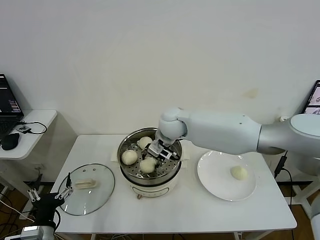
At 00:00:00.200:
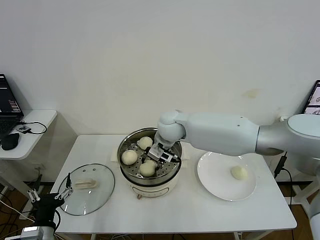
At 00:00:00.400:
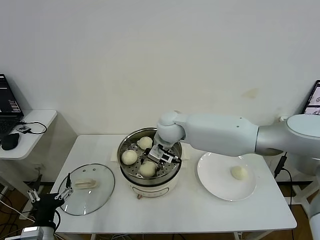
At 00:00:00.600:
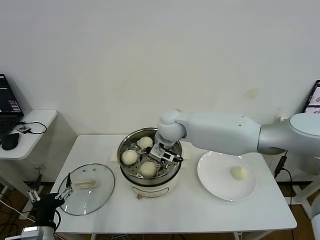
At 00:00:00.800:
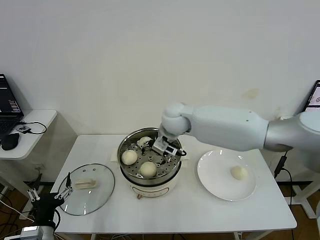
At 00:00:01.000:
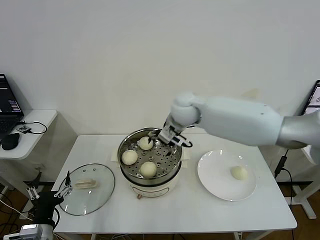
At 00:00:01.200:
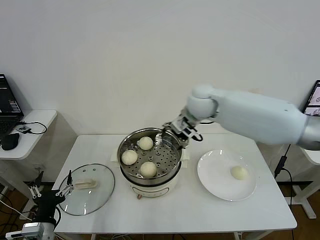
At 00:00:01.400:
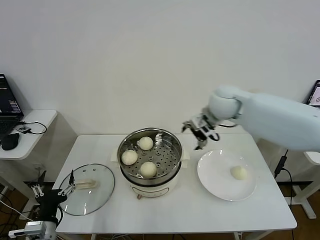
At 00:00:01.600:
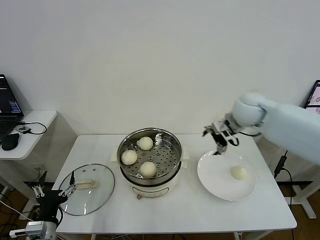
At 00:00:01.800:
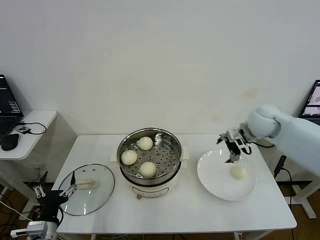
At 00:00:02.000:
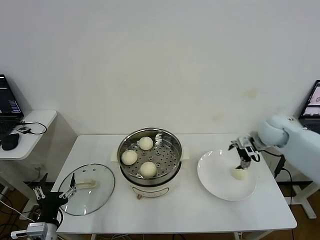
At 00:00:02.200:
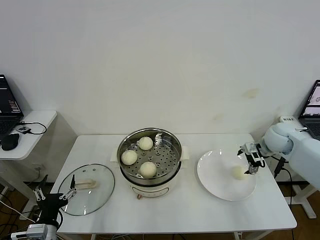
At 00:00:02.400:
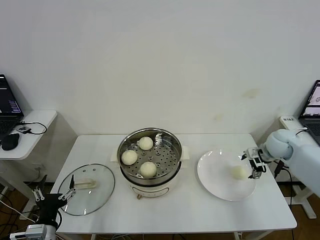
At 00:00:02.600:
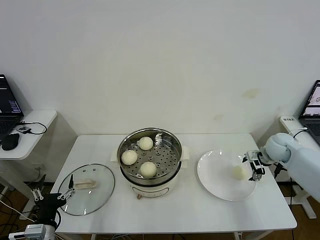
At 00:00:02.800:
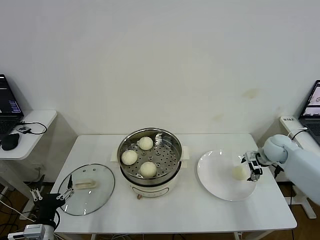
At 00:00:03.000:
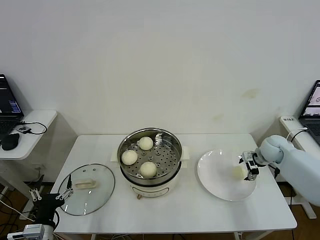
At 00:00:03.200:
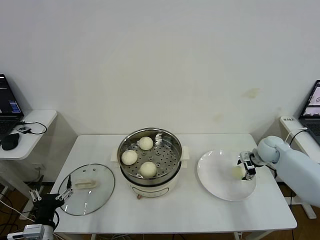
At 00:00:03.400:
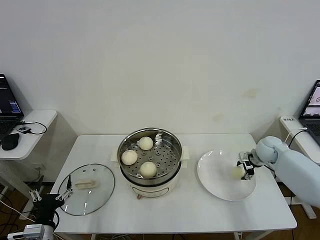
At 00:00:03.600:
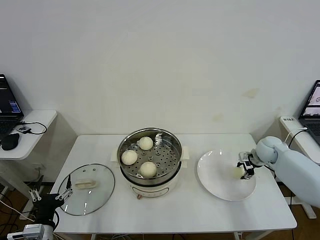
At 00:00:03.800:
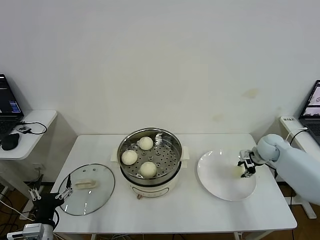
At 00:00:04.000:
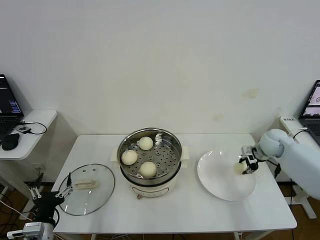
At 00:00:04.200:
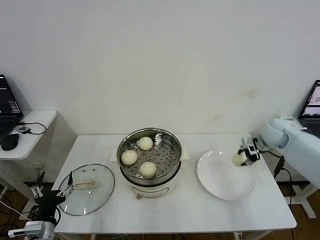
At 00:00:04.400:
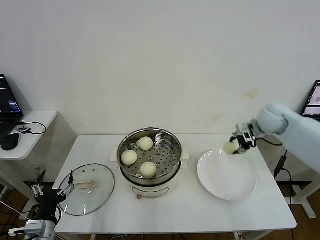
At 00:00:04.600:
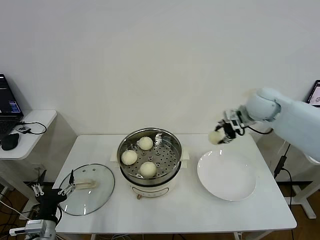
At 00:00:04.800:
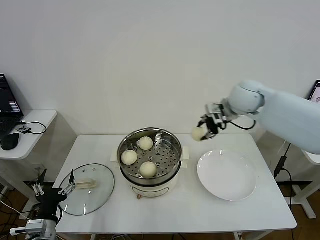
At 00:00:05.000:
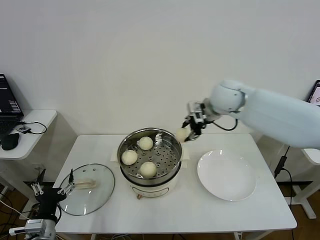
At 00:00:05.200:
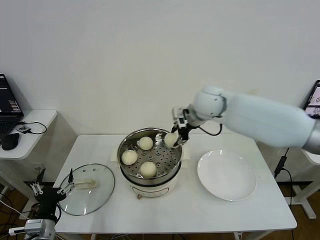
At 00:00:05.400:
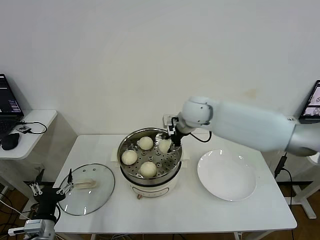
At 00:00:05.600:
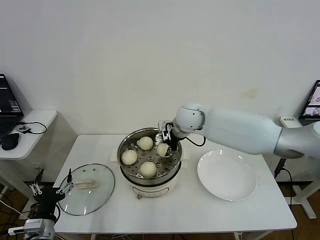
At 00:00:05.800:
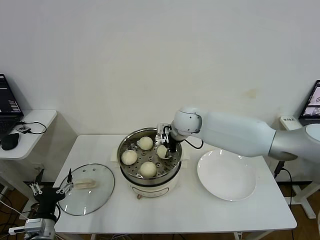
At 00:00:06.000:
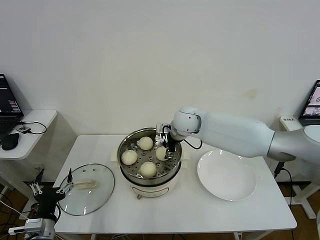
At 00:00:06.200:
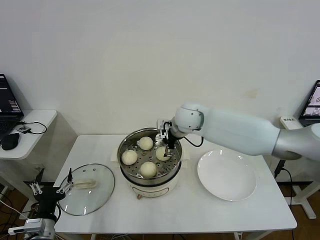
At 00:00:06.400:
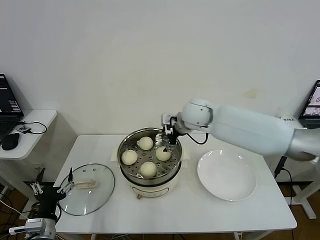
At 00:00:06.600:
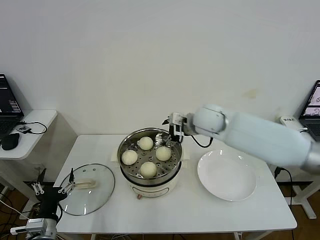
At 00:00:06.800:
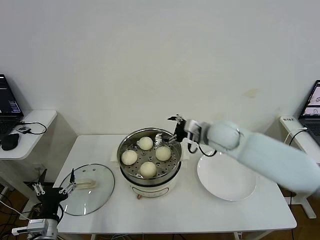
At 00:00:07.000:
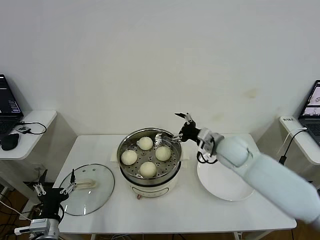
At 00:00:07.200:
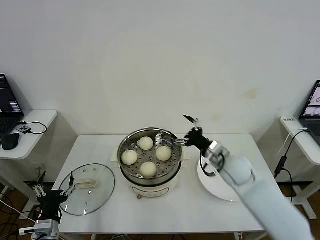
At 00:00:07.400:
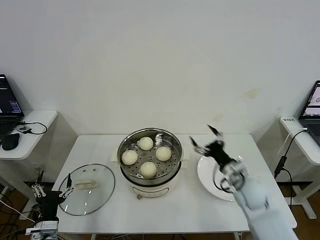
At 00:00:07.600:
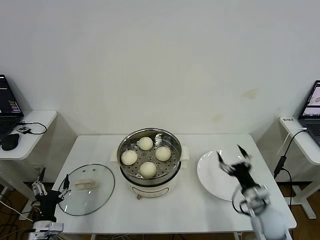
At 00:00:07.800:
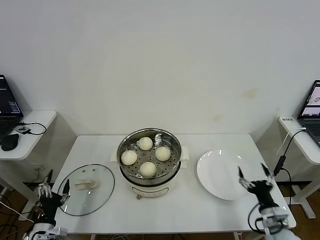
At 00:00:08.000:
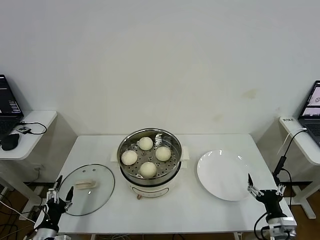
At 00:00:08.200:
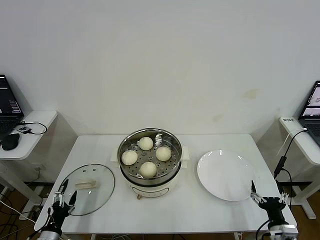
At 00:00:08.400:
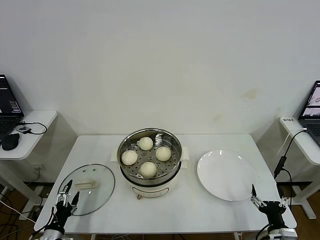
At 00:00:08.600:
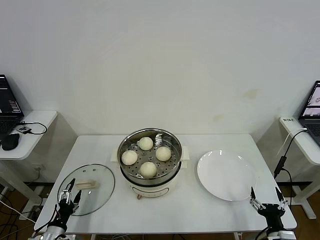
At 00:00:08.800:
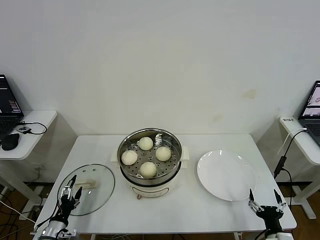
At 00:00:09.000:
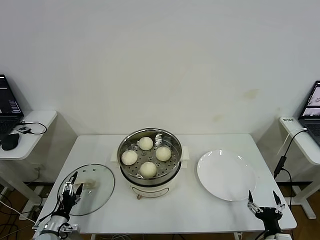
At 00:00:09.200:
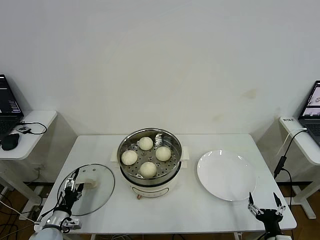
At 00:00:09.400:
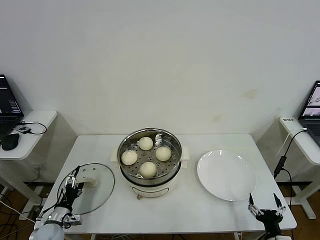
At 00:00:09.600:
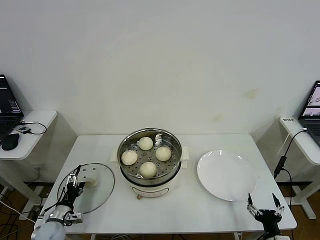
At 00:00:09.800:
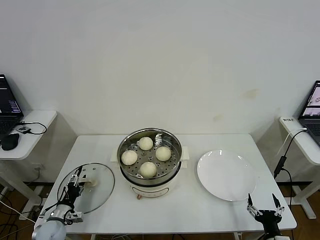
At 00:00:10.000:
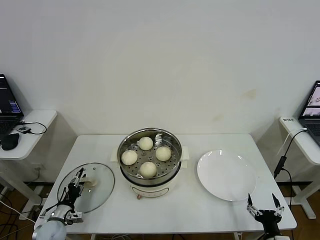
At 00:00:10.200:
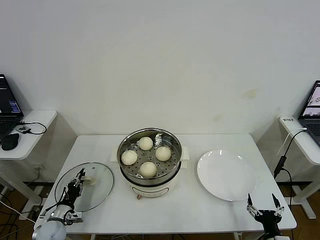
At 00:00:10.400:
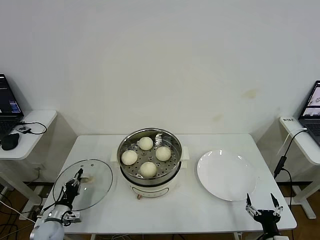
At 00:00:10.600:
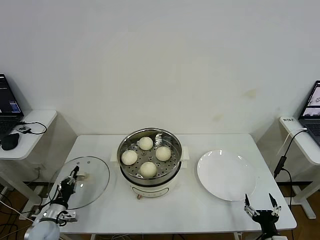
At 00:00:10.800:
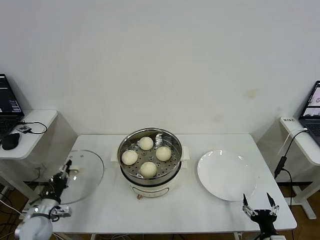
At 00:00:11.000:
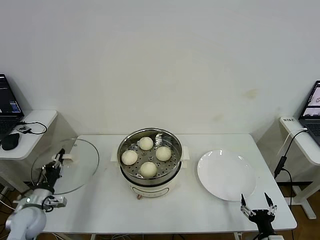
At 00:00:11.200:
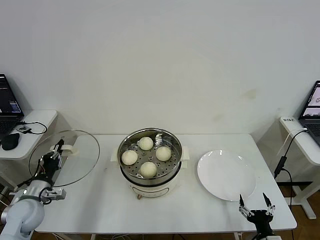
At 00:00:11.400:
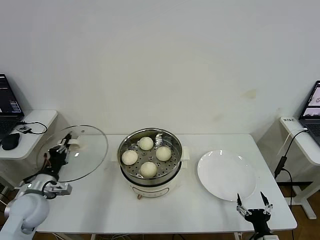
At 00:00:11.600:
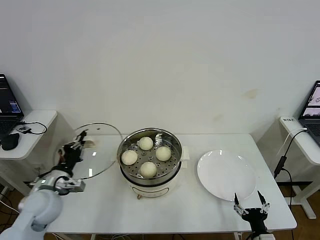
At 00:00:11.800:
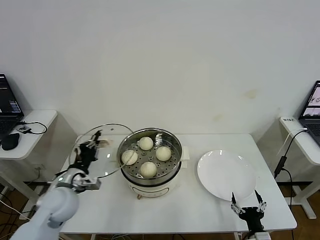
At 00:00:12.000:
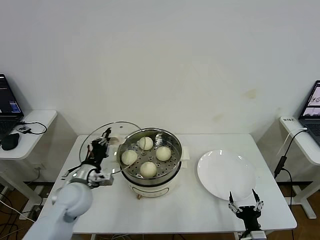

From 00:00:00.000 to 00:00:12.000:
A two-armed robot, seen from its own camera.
Step, from 00:00:00.800 to 00:00:03.600: Grasp the baozi in the plate with right gripper.
Step, from 00:00:03.800 to 00:00:06.200: Place the baozi on the steamer with right gripper.
Step, from 00:00:06.400 to 00:00:10.400: Grasp the pot lid with left gripper.
From 00:00:00.000 to 00:00:01.600: The right gripper shifts some 25 cm to the right, and opens.
From 00:00:01.600 to 00:00:03.000: The right gripper goes some 25 cm downward and to the right.
From 00:00:03.000 to 00:00:04.400: The right gripper shifts some 15 cm upward and to the left, and closes its fingers.
From 00:00:04.400 to 00:00:06.000: The right gripper travels to the left by some 25 cm, and opens up.
From 00:00:06.000 to 00:00:07.600: The left gripper travels downward by some 5 cm, while the right gripper moves backward, to the right and downward, some 40 cm, and opens.
From 00:00:07.600 to 00:00:09.000: The right gripper moves backward and downward, roughly 15 cm, while the left gripper shifts approximately 5 cm downward.
From 00:00:09.000 to 00:00:10.400: The left gripper ends up some 5 cm from where it was, and closes its fingers.
From 00:00:10.400 to 00:00:12.000: The right gripper ends up some 5 cm from where it was. Meanwhile the left gripper is displaced upward and to the right by about 25 cm.

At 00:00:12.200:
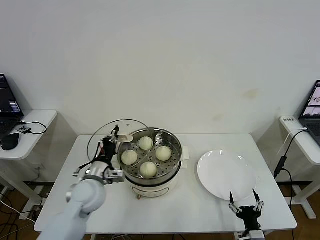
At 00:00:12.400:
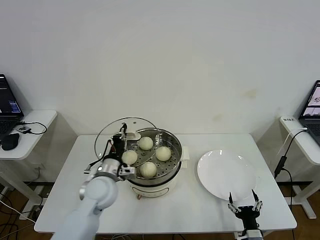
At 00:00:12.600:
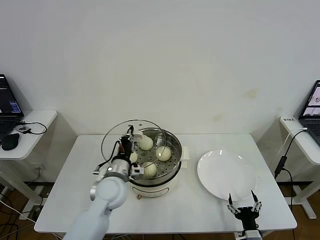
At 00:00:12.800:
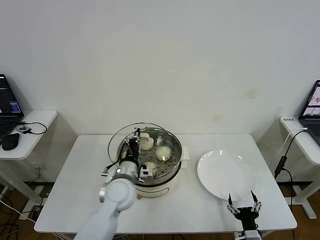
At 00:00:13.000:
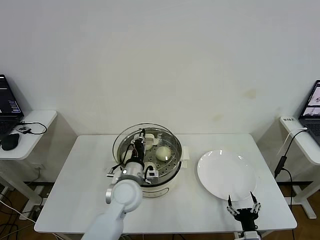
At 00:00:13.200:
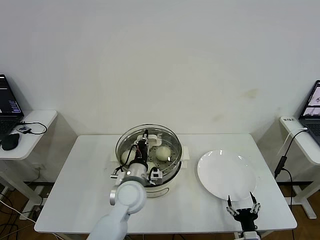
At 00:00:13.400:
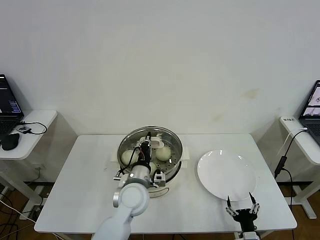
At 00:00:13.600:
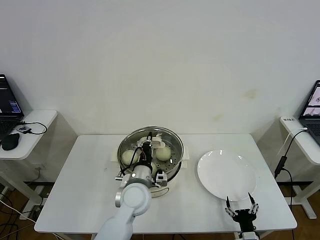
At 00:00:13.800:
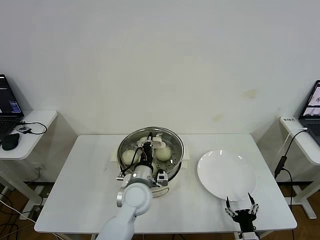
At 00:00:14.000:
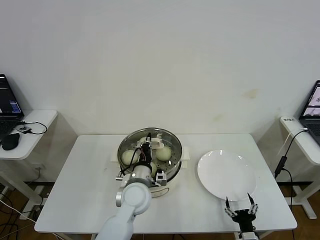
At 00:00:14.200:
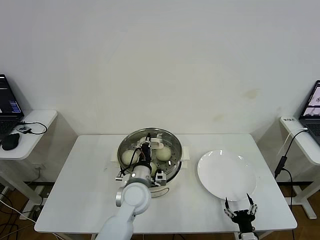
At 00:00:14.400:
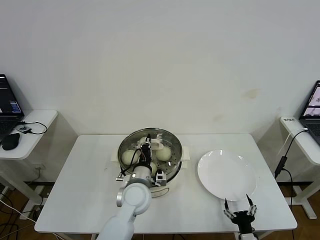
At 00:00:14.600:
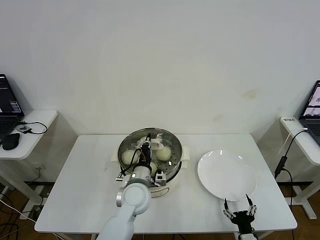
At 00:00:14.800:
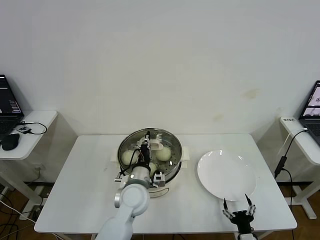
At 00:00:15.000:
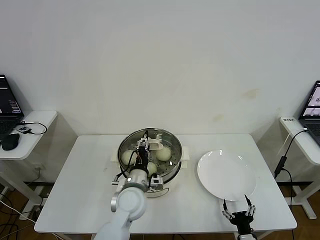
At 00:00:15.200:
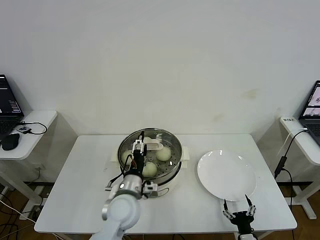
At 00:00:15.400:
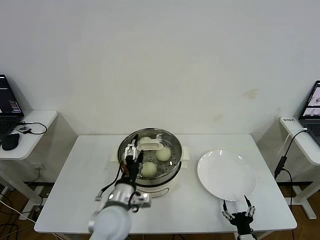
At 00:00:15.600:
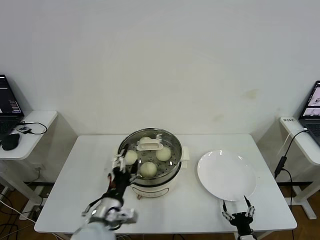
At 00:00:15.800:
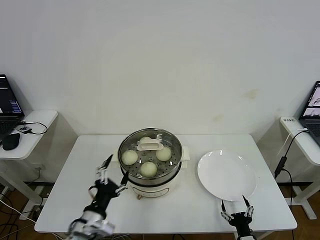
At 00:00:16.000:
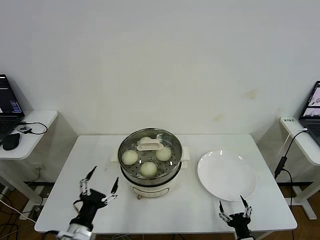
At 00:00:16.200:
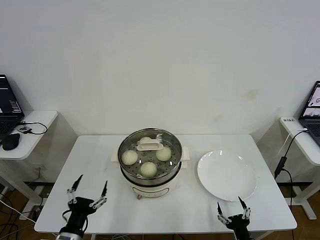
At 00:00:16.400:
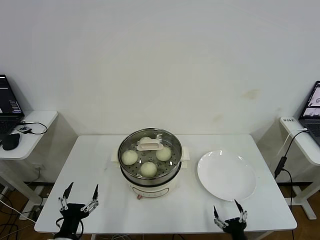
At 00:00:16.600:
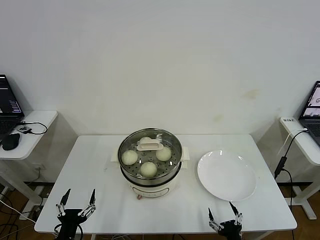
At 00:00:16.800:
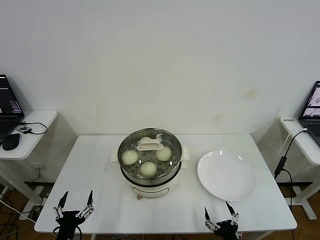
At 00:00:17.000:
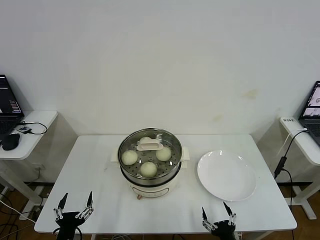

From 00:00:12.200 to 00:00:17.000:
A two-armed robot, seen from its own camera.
Step, from 00:00:12.200 to 00:00:15.000: Place the pot lid on the steamer with left gripper.
From 00:00:12.200 to 00:00:13.800: The left gripper is displaced to the right by some 15 cm.
From 00:00:13.800 to 00:00:15.400: The left gripper moves backward, roughly 5 cm, and opens up.
From 00:00:15.400 to 00:00:17.000: The left gripper moves to the left, backward and downward, some 25 cm. The right gripper goes roughly 5 cm to the left.
